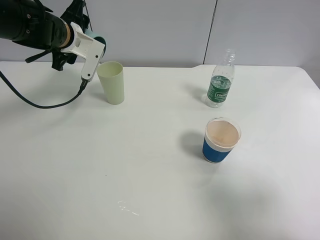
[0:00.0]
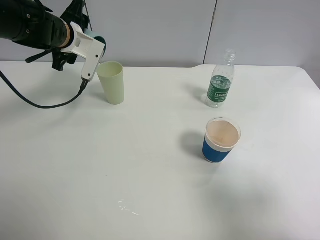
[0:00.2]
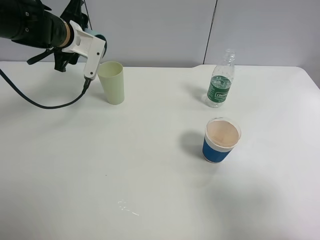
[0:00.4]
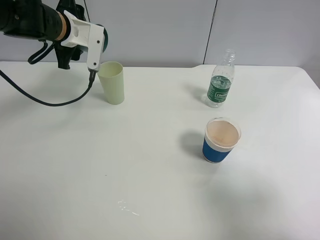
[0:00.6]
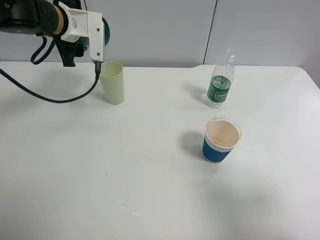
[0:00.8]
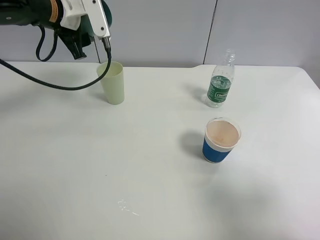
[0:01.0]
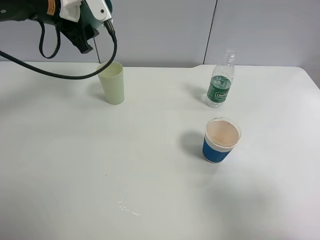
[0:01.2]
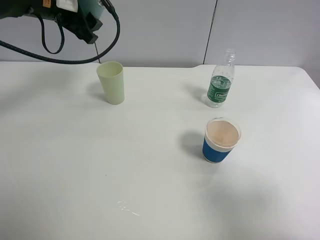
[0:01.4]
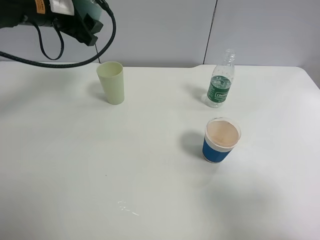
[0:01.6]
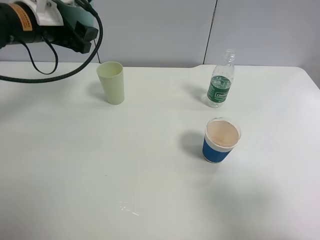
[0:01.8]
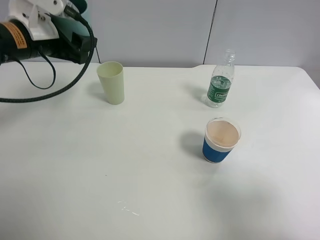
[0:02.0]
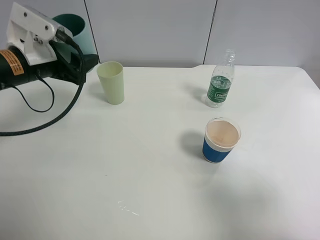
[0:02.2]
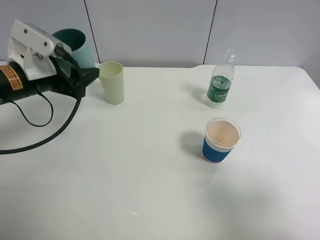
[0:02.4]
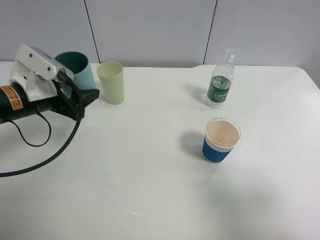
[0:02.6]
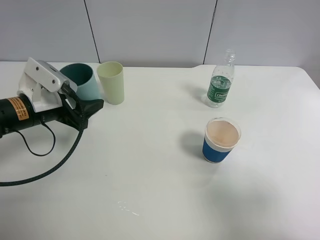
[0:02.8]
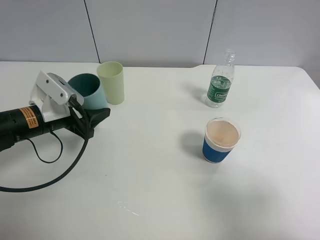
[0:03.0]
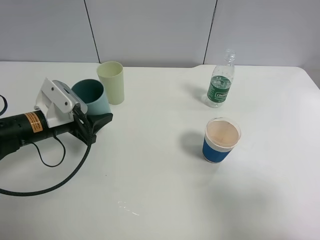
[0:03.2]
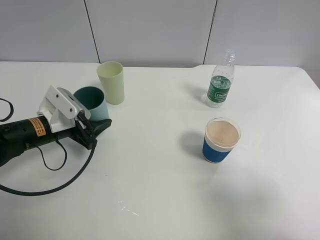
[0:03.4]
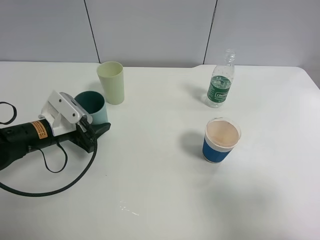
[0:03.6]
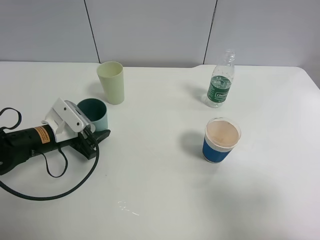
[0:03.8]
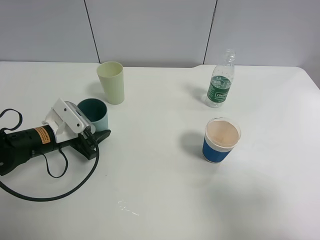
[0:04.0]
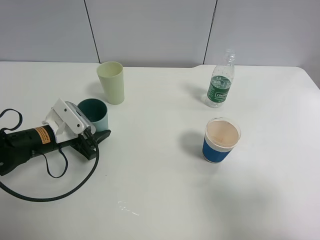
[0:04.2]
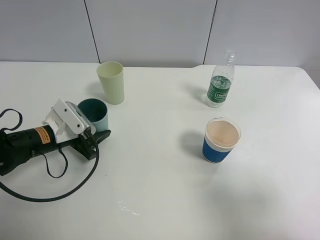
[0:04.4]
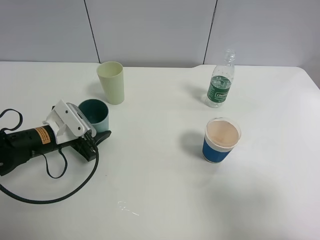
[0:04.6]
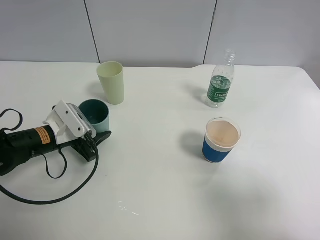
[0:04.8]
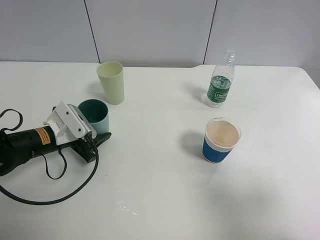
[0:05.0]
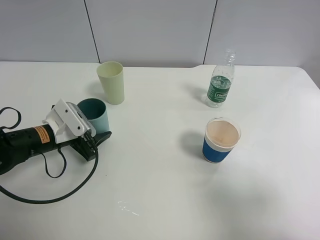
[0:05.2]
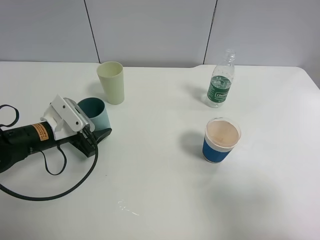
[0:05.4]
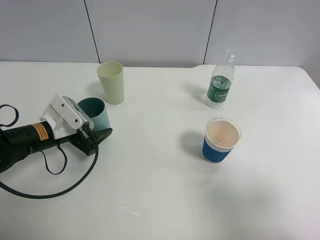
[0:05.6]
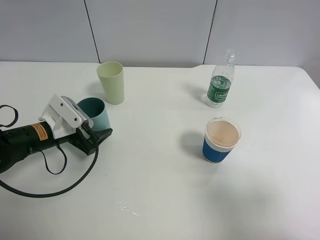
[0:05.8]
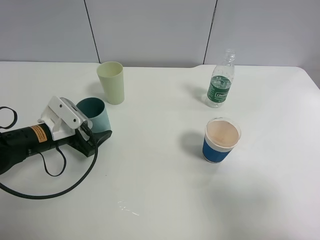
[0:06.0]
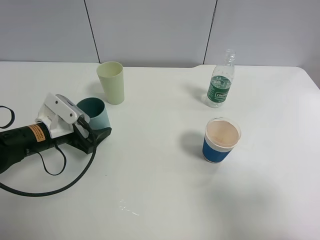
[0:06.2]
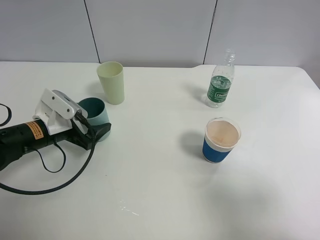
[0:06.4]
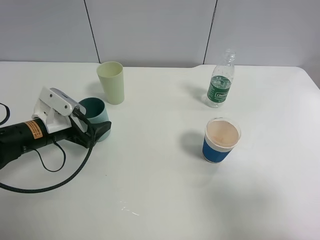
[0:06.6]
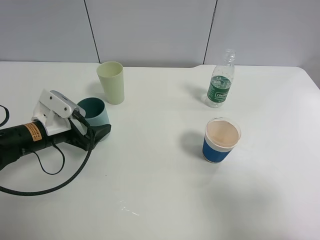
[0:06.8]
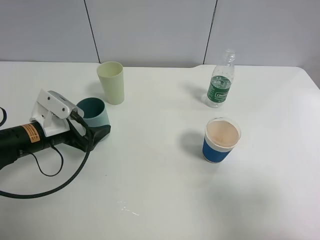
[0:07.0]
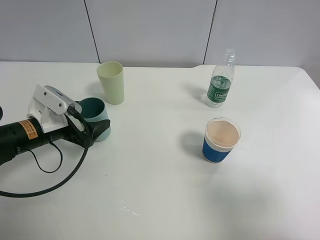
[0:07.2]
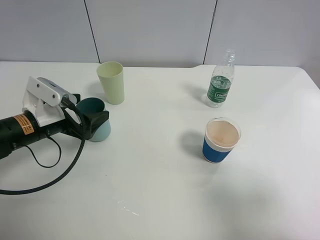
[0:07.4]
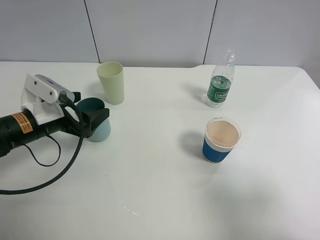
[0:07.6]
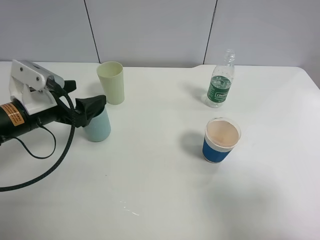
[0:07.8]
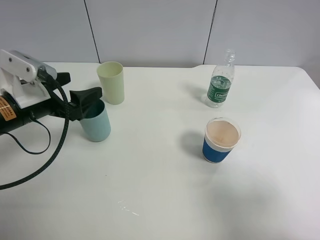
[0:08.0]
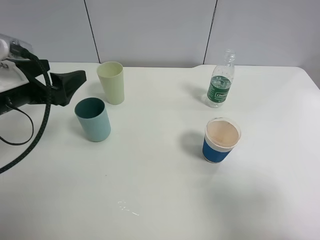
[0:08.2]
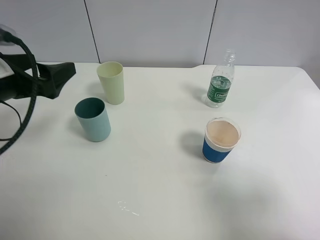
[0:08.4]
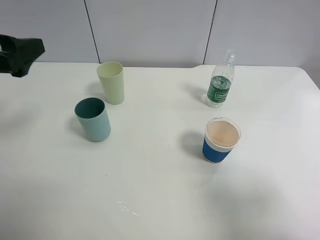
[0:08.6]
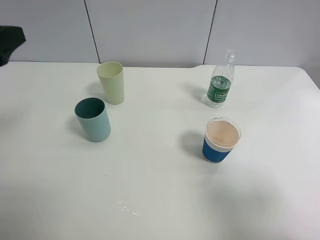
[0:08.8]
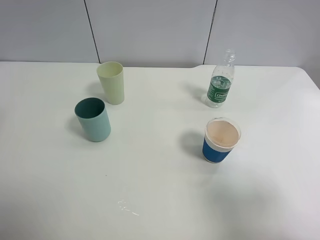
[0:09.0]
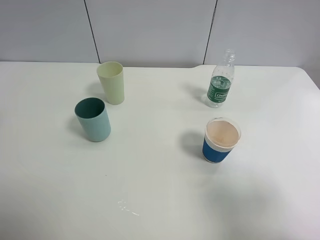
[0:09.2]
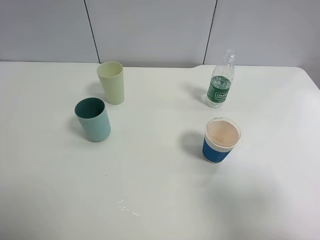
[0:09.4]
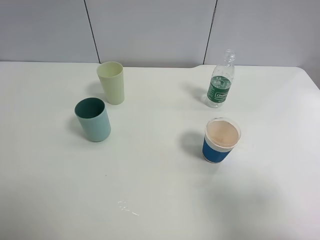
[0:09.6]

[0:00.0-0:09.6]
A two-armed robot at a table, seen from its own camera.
Task of the whole recording: use a clamp to hold the bottle of the drink, pour the beverage into a random cup, then clamp the cup containing the drink and pour the drink into another random cup.
Step, 0:01.2 to 0:06.0: Place the blue plastic cup on the table with left gripper.
0:00.0 to 0:01.6: The left gripper moves upward, some 5 cm.
0:01.6 to 0:03.2: The left gripper travels downward and backward by some 20 cm.
0:03.2 to 0:04.8: The grippers stay close to where they were, moving slightly.
0:04.8 to 0:06.4: The left gripper opens.
0:06.4 to 0:08.0: The left gripper travels upward by about 10 cm.
0:08.0 to 0:09.6: The left gripper heads upward and backward, covering about 20 cm.

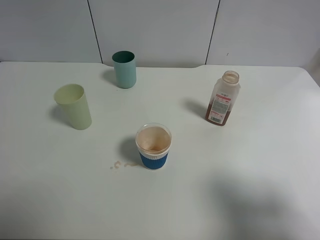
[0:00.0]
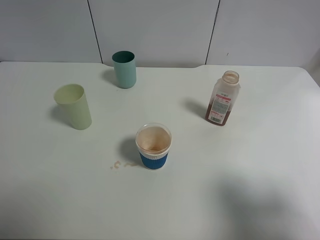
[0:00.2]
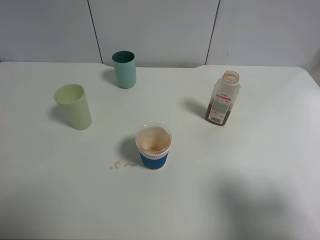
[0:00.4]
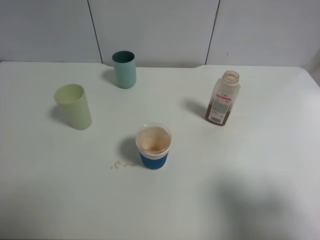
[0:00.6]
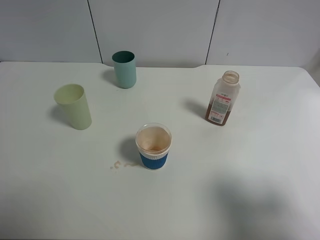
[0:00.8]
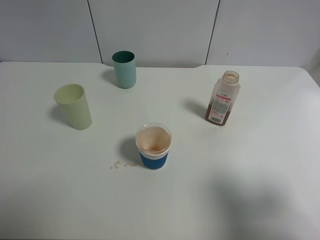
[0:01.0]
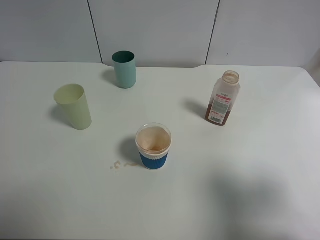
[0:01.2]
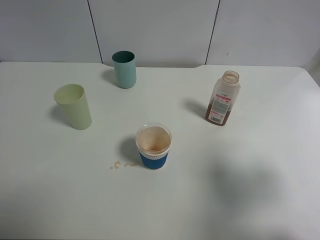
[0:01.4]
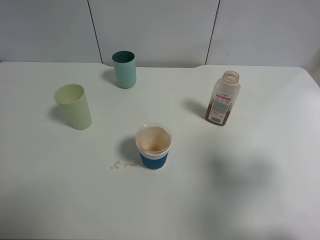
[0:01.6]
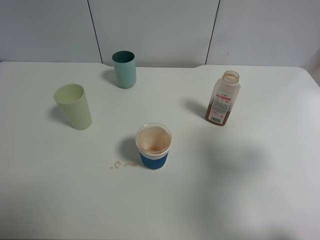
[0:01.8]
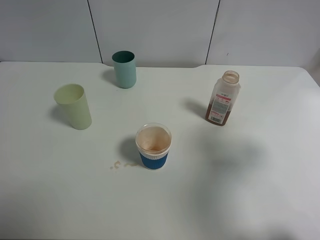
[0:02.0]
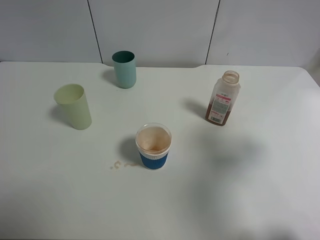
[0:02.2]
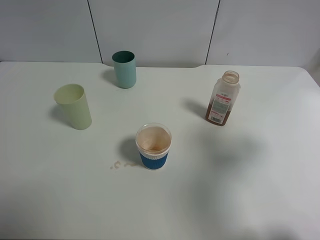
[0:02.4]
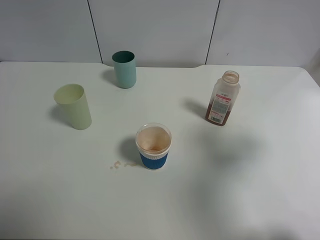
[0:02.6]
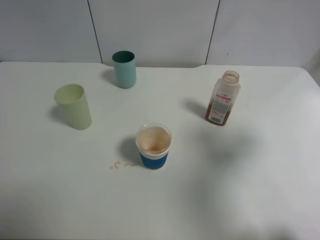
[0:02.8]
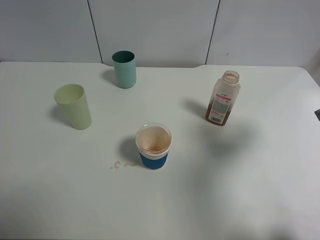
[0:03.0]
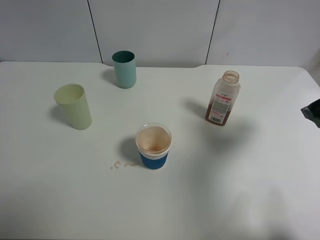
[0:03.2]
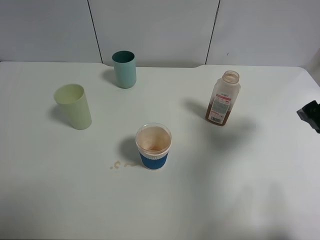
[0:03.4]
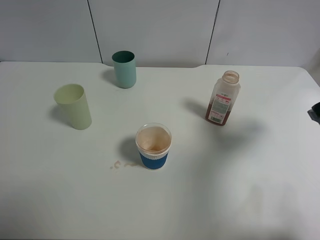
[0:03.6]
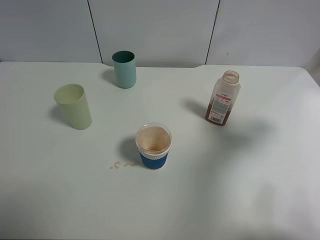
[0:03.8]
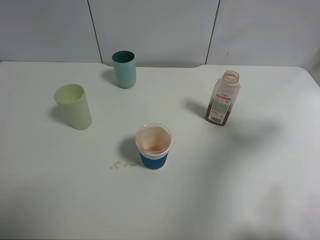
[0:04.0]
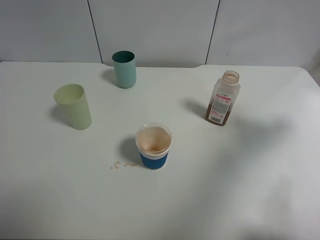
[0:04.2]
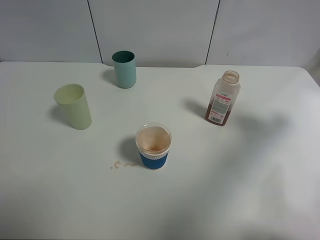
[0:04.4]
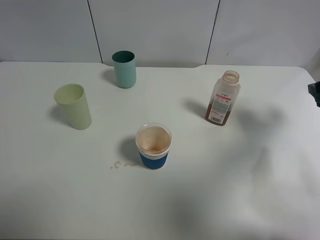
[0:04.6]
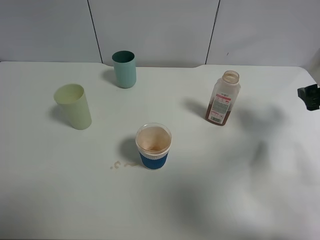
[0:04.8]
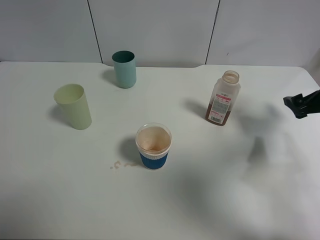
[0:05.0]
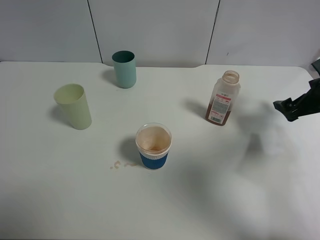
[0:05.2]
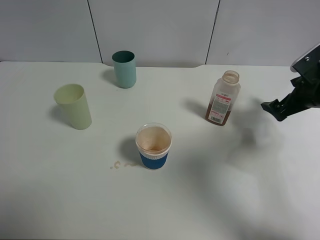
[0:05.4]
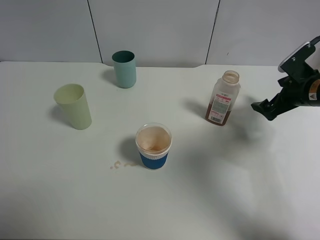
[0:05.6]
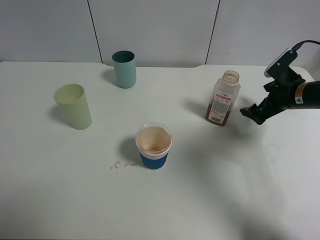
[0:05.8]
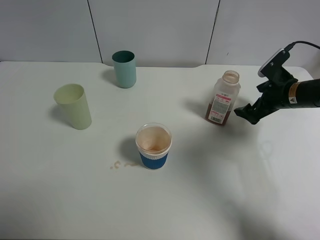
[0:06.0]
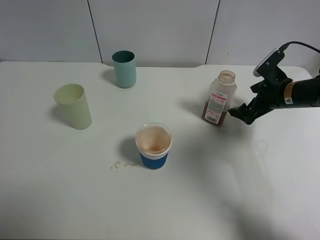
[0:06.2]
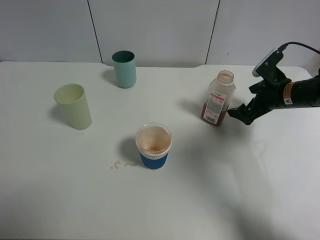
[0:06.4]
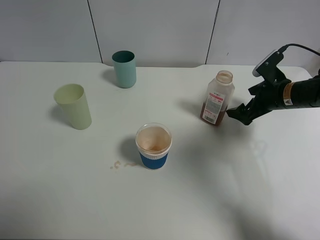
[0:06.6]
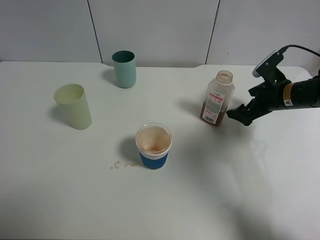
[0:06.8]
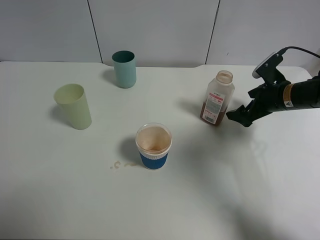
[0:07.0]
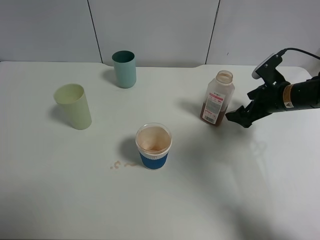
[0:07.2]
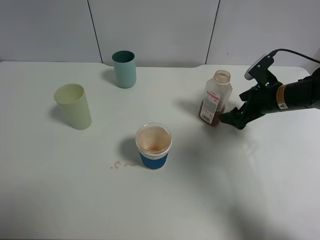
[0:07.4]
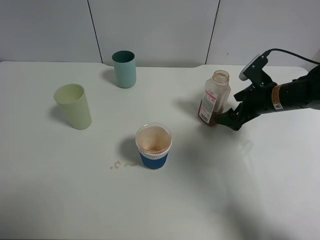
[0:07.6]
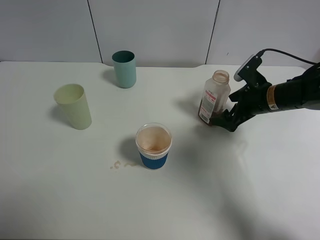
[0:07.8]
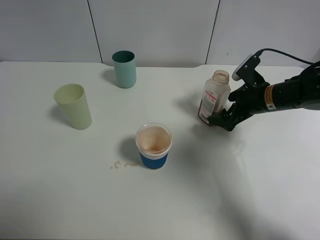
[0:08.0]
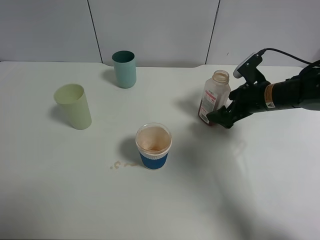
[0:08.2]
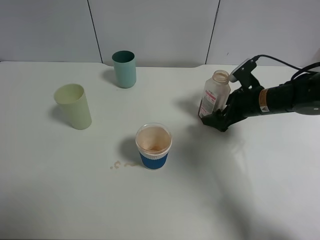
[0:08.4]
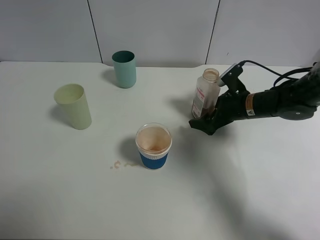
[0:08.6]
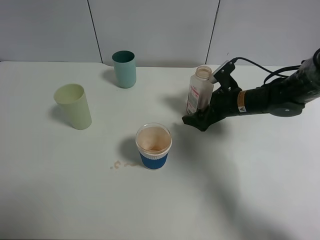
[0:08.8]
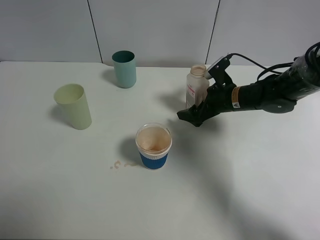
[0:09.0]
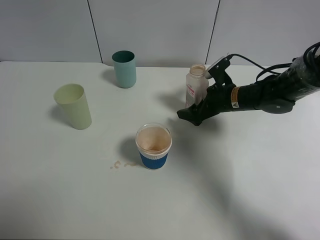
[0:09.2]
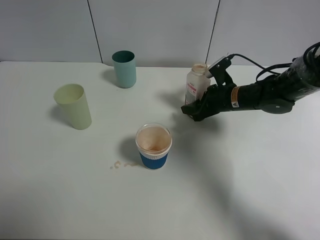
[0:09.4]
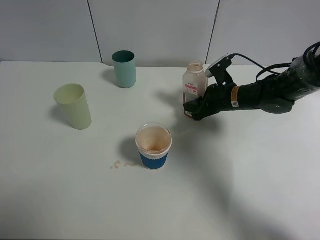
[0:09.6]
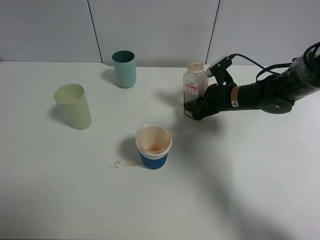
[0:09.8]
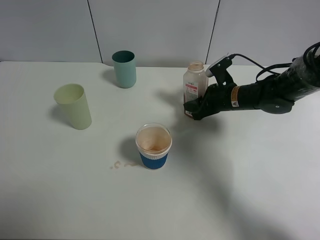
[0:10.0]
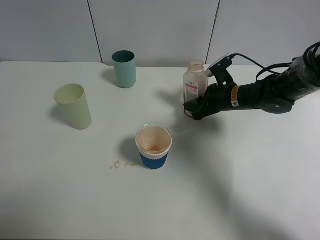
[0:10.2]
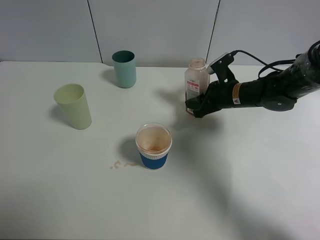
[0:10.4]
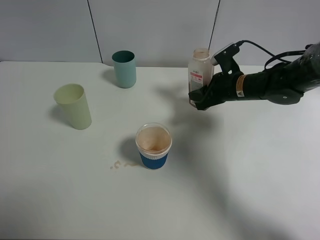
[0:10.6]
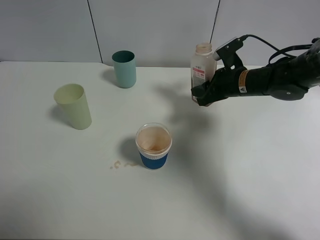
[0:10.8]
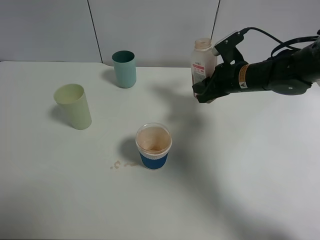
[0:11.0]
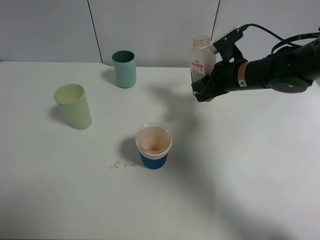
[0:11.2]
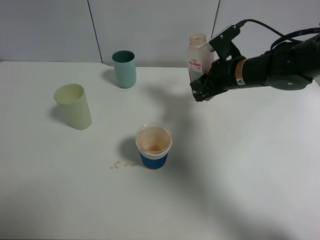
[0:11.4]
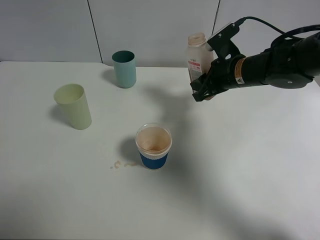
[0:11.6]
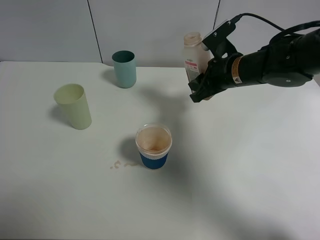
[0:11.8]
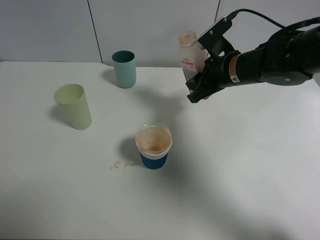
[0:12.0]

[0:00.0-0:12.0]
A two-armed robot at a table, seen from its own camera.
Task of the whole recording: use a clamp to hold the bottle of the drink, pour the beverage into a random cup, then clamp the cup containing the drink and pour the drink into another random cup.
Step, 0:00.0 to 0:10.8: Pick up the drink bottle with right gripper.
0:00.0 to 0:01.6: The right gripper travels forward by some 10 cm.
0:01.6 to 0:03.0: The right gripper shifts roughly 10 cm forward.
0:03.0 to 0:04.4: The right gripper travels to the right and forward by approximately 10 cm.
0:04.4 to 0:06.0: The right gripper shifts approximately 20 cm downward, forward and to the left.
0:06.0 to 0:07.6: The grippers stay close to where they were, moving slightly.
0:07.6 to 0:09.0: The right gripper is displaced to the left by roughly 5 cm.
0:09.0 to 0:10.4: The right gripper closes its fingers.
0:10.4 to 0:12.0: The right gripper is displaced upward by about 10 cm.
